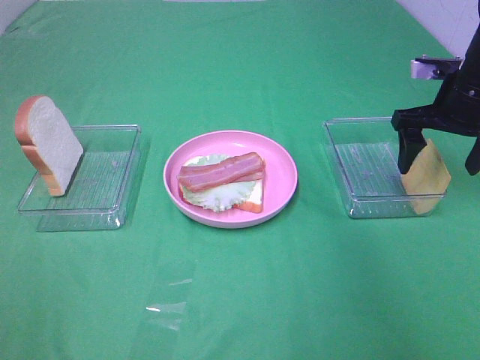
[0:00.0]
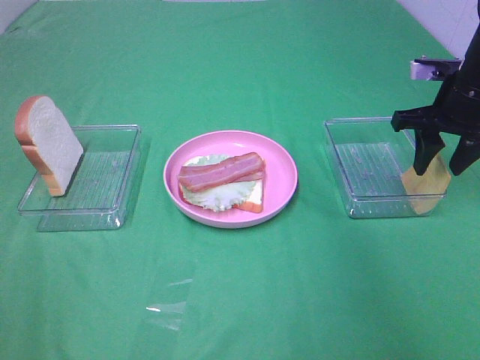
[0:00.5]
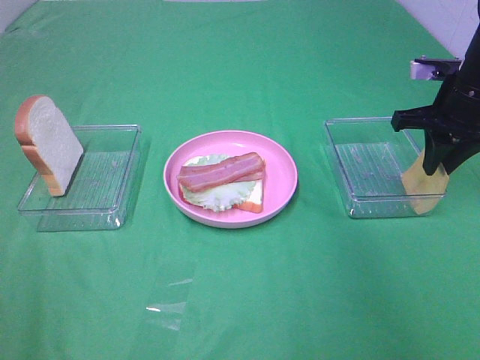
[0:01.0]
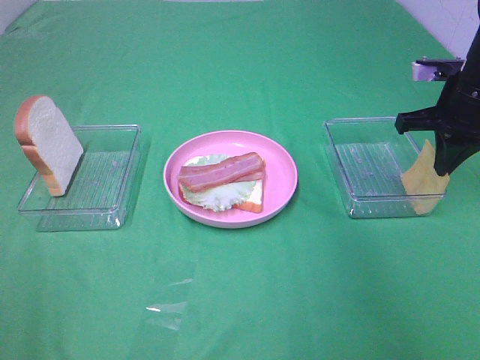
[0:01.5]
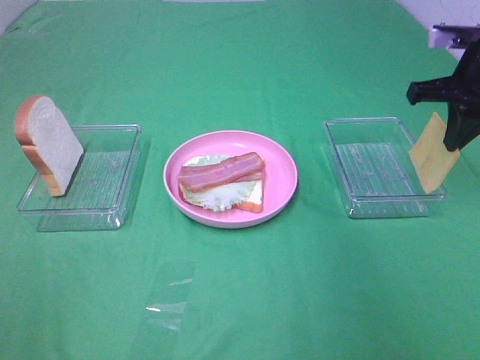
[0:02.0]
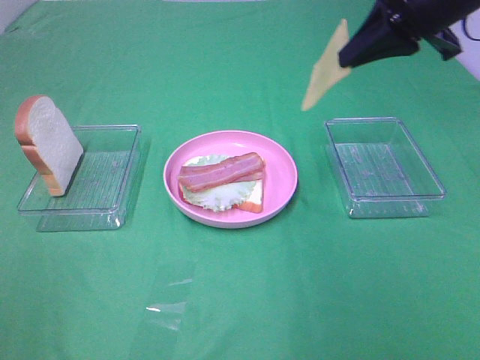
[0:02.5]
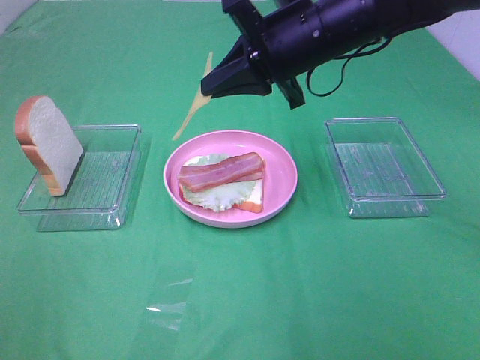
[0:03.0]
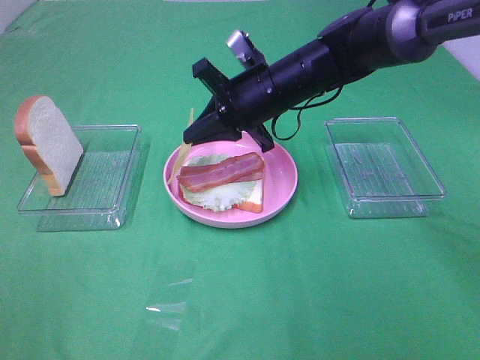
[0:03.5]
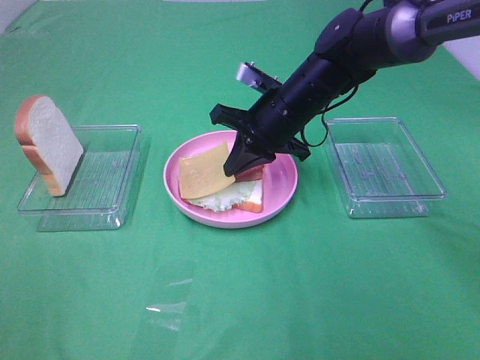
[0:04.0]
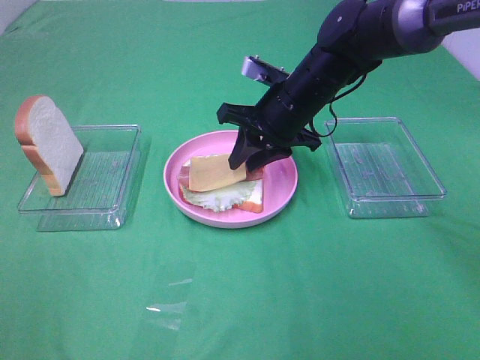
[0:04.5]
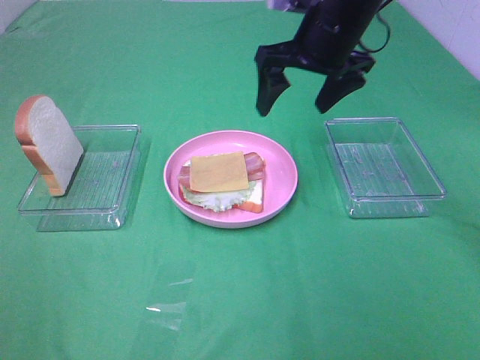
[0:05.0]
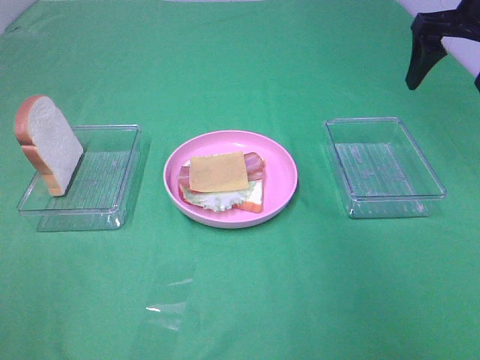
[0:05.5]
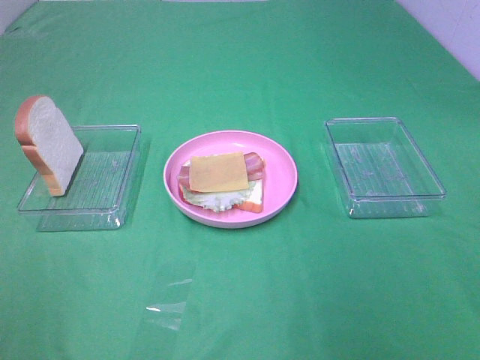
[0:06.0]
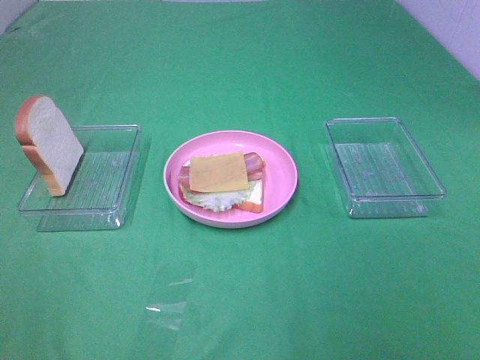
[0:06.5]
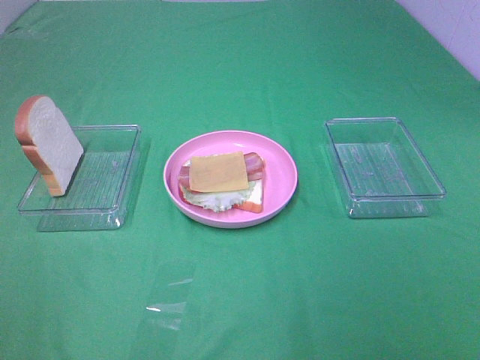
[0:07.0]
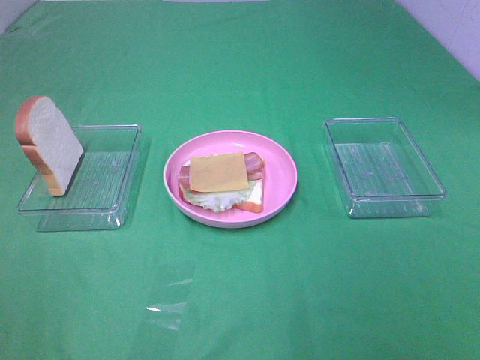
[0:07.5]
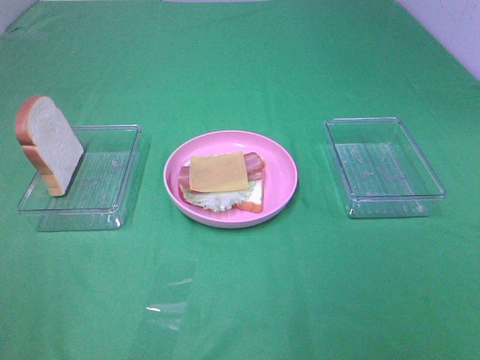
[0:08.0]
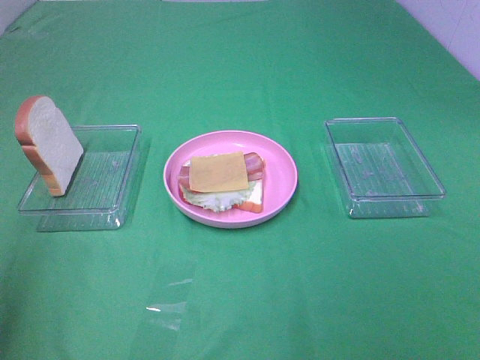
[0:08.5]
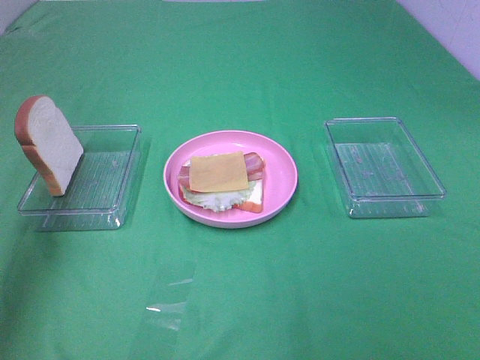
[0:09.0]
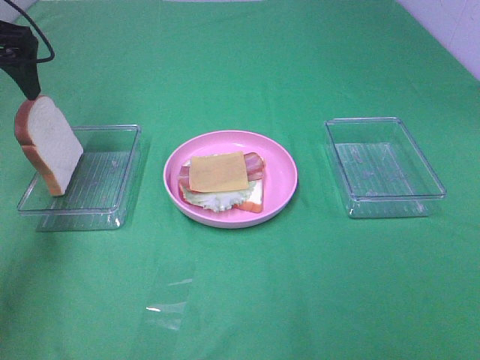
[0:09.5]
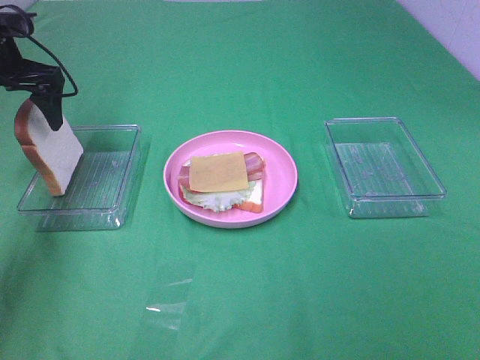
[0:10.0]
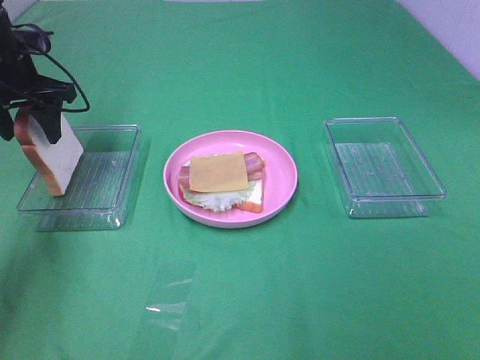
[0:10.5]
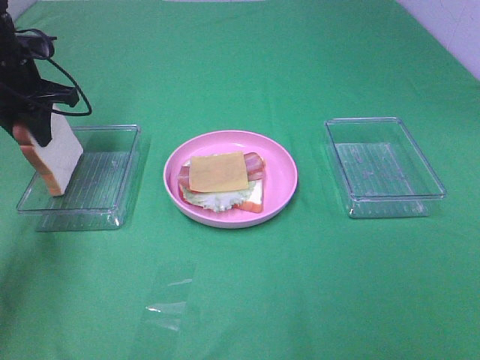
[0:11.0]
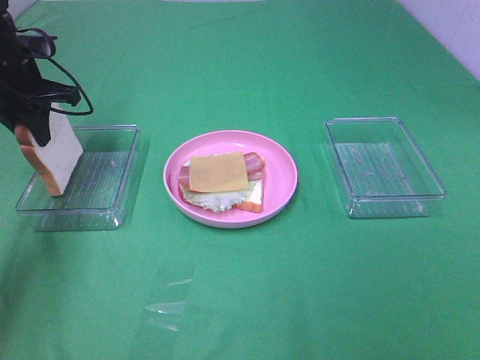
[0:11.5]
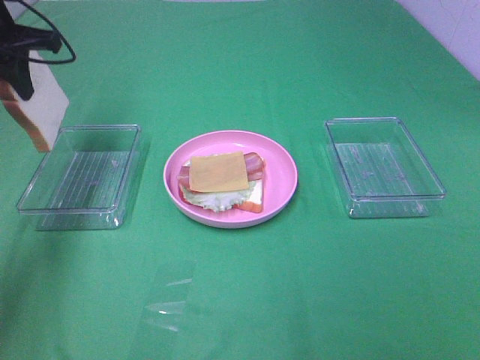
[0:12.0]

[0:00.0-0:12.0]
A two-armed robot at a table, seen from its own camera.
Task of the whole recording: Make sandwiches.
Step, 0:02.0 to 0:04.5: Right hand:place the cheese slice on top of the bacon.
Step, 0:05.0 to 0:11.0: Left hand:grab the bread slice.
0:00.0 to 0:02.0: The right gripper is displaced upward by roughly 5 cm, and closes up.
0:02.0 to 0:04.0: The right gripper travels to the left and downward by about 25 cm.
0:04.0 to 0:06.0: The right gripper heads backward, to the right and upward, covering approximately 35 cm, and opens its fingers.
0:08.0 to 0:10.0: The left gripper heads forward, covering roughly 40 cm.
0:10.0 to 0:12.0: The left gripper is displaced upward by roughly 5 cm, and closes its fingers.

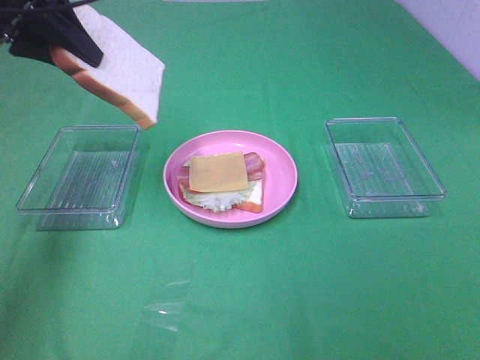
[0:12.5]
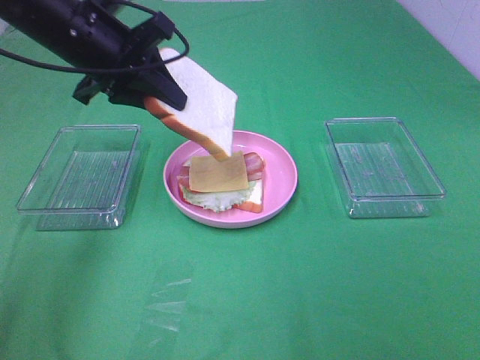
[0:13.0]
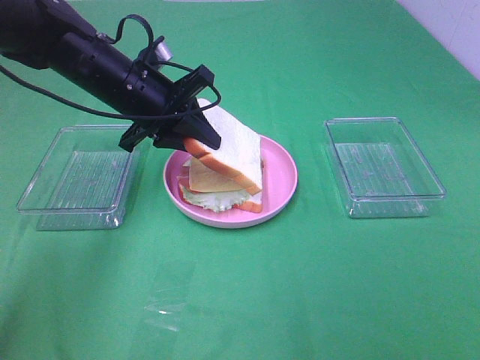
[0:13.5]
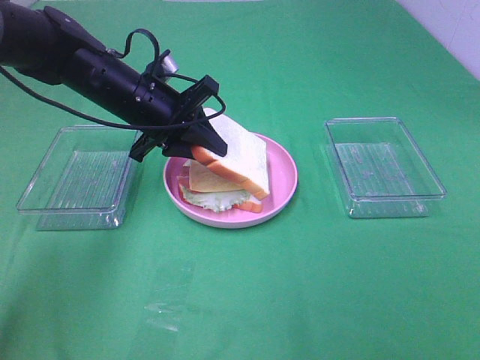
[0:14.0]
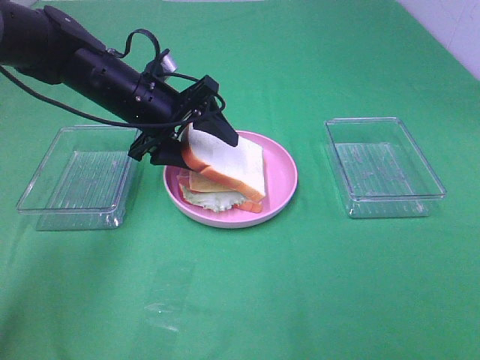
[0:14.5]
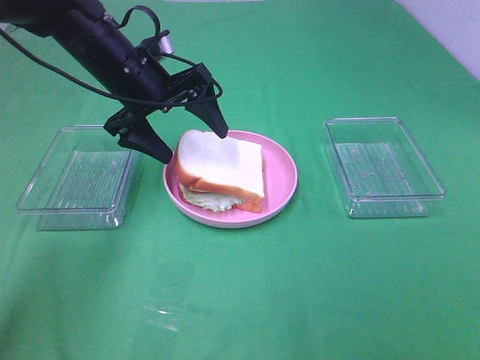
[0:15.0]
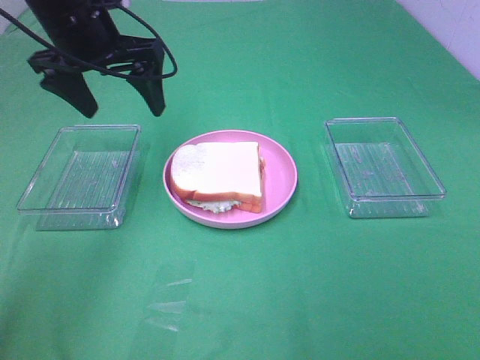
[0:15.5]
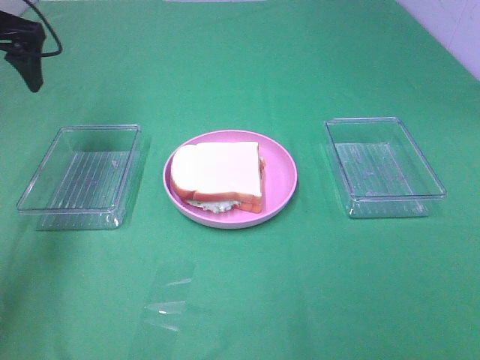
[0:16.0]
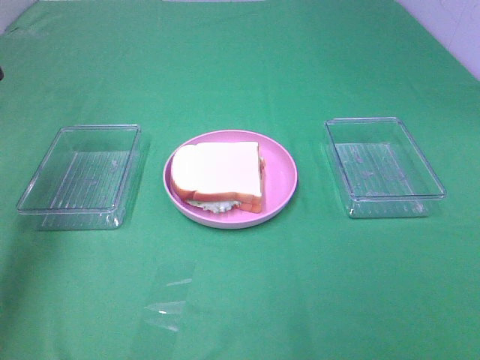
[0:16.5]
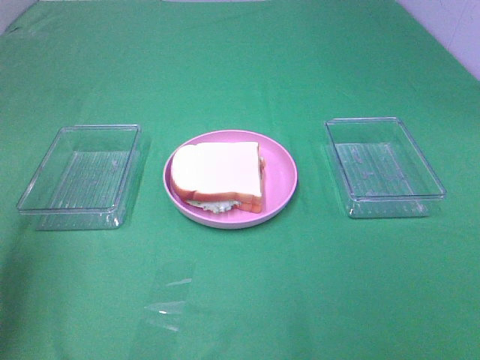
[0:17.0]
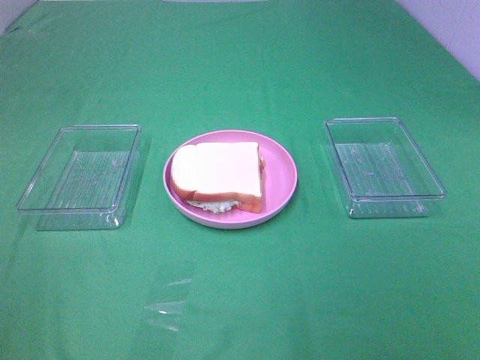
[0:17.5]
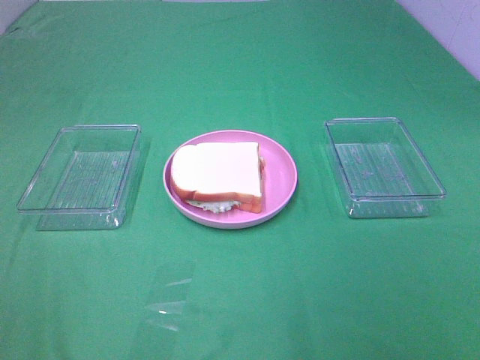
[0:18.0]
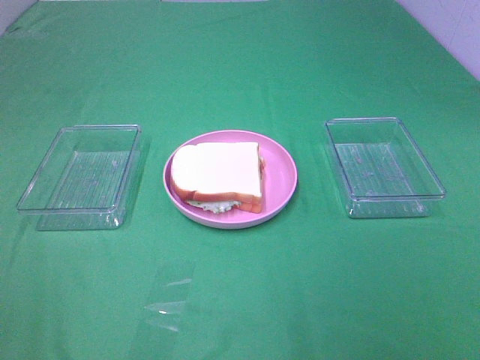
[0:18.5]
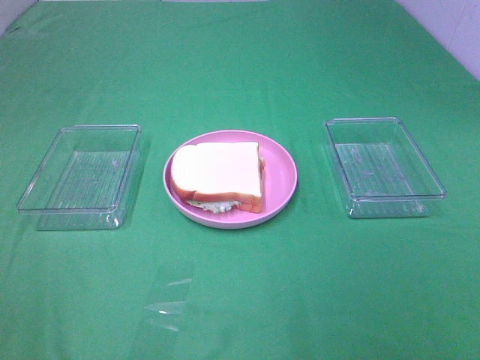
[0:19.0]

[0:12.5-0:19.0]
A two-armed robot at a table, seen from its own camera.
Task of the whole recording: Make sandwiches.
Step, 0:12.5 to 0:15.0: Left hand:place the bread slice on the cheese slice.
0:12.5 to 0:14.5: The left gripper travels downward and to the right by about 20 cm, and opens.
0:14.5 to 0:17.0: The left gripper travels backward, to the left and upward by roughly 30 cm.
0:17.0 to 0:19.0: The left gripper heads backward, covering approximately 20 cm.

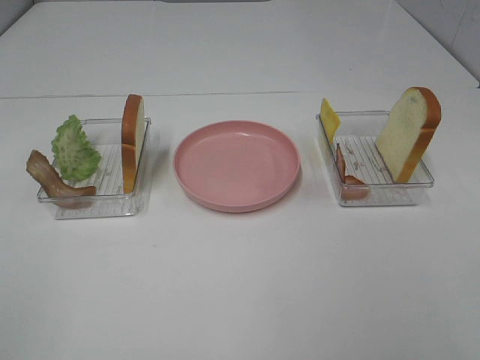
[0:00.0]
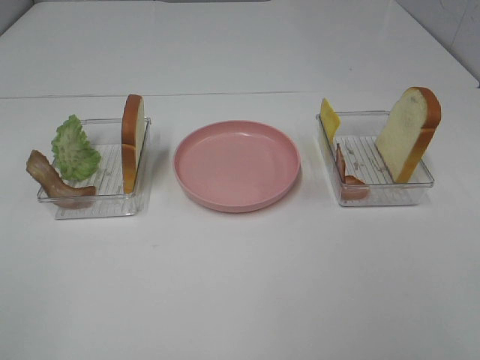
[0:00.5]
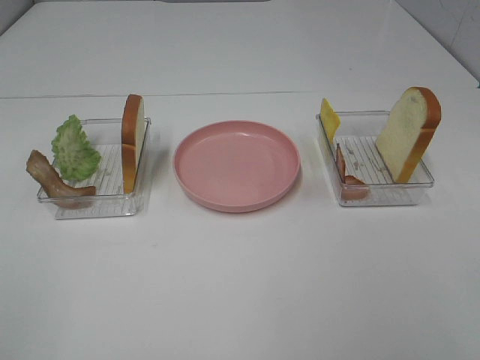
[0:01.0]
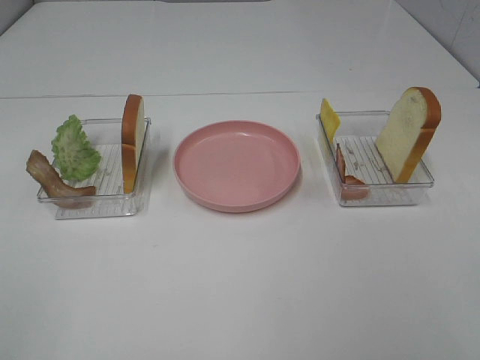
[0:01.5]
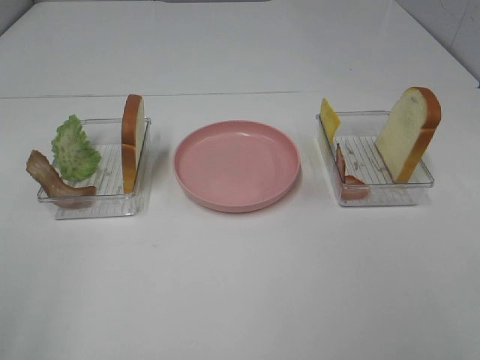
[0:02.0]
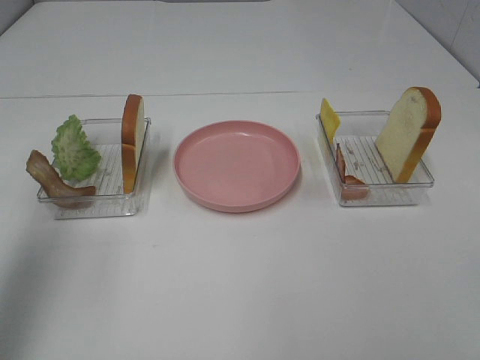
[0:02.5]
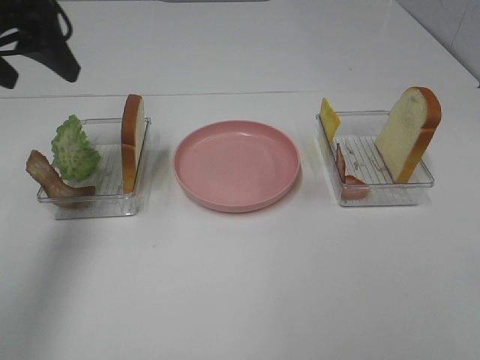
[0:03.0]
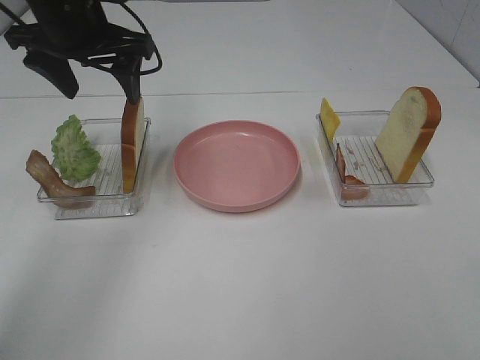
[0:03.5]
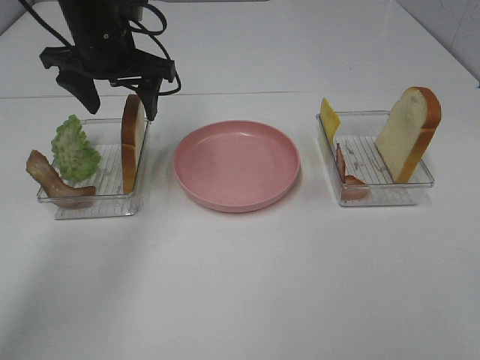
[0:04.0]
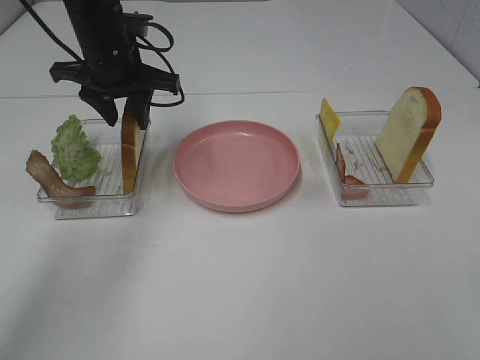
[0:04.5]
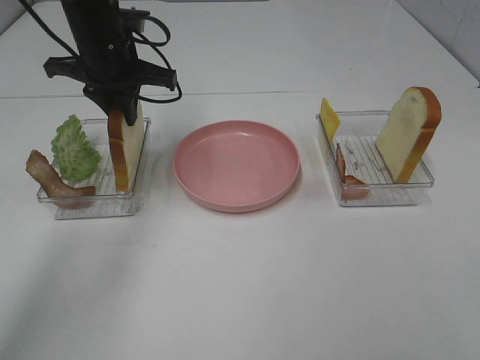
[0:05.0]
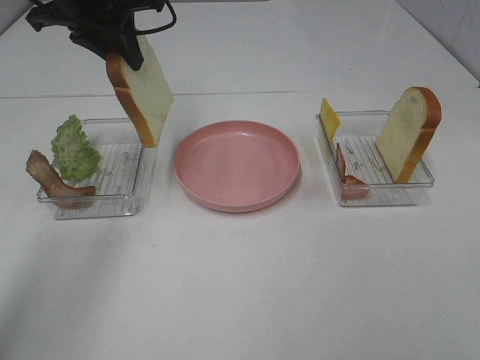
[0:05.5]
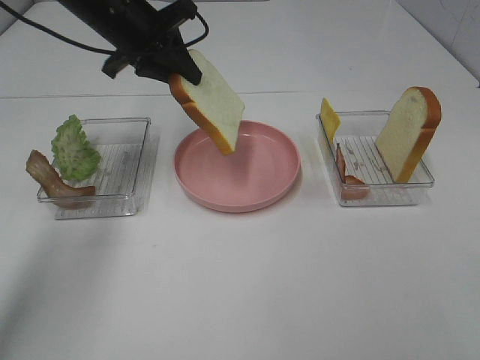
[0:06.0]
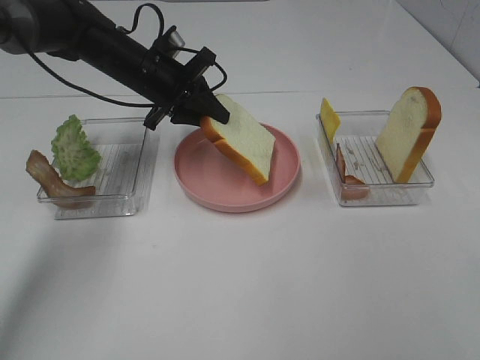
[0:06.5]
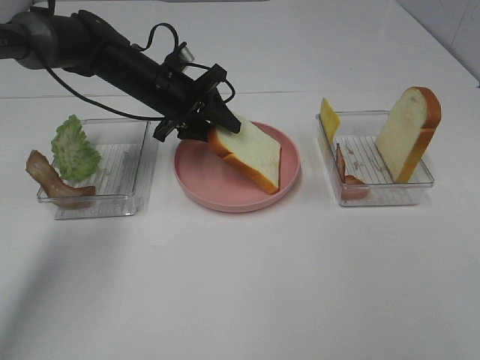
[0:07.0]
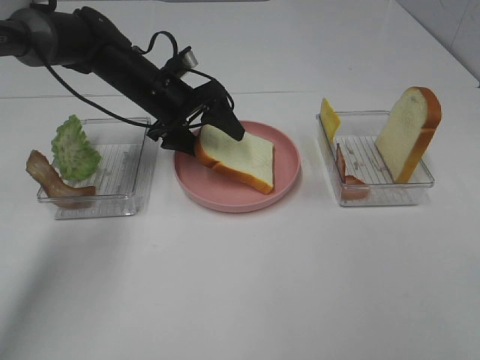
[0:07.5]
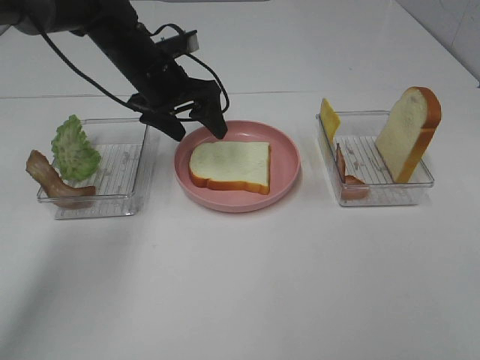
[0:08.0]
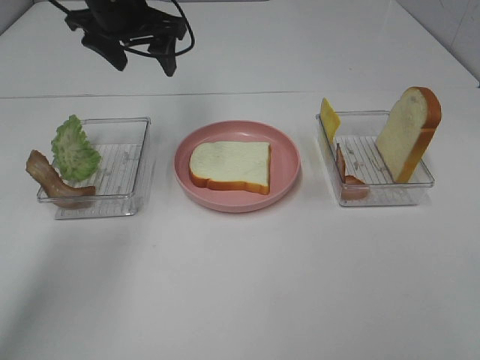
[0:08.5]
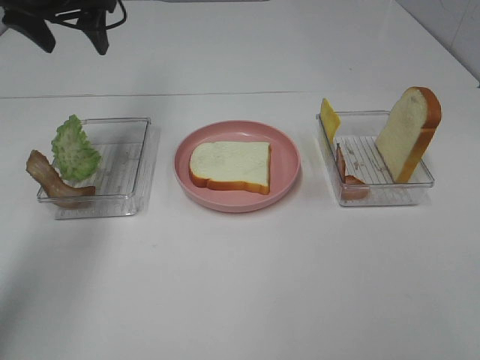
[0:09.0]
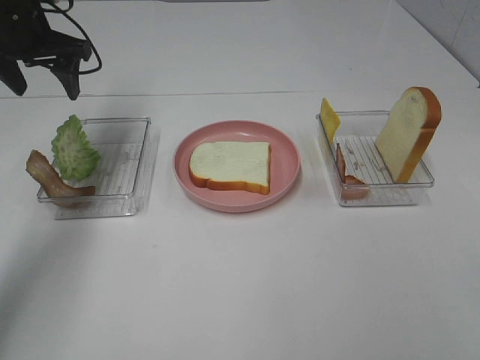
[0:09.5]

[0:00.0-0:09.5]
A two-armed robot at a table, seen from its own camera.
Task of the whole recording: Make sandwiches.
Step, 0:00.0 to 0:04.5: Left hand:grab the bread slice.
Step, 0:05.0 to 0:08.0: Left hand:place the bread slice on the plate.
0:02.0 to 0:04.0: The left gripper heads forward, covering about 40 cm.
0:04.0 to 0:05.5: The left gripper heads upward, covering approximately 5 cm, and closes its fingers.
0:05.5 to 0:07.5: The left gripper goes about 15 cm downward, and opens.
0:07.5 to 0:09.5: The left gripper is displaced to the left and upward by roughly 20 cm.
